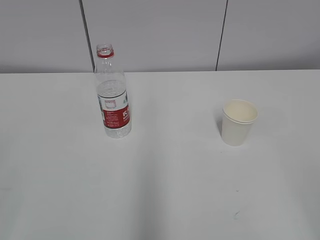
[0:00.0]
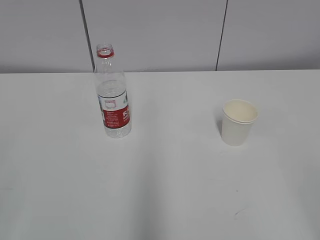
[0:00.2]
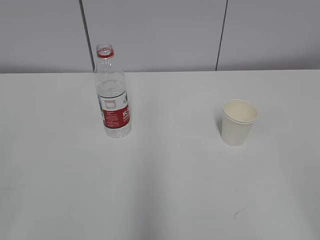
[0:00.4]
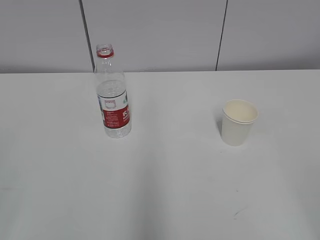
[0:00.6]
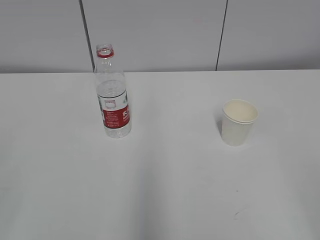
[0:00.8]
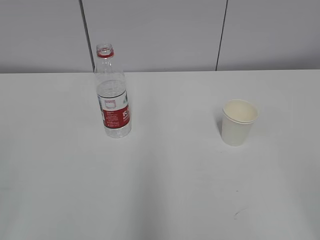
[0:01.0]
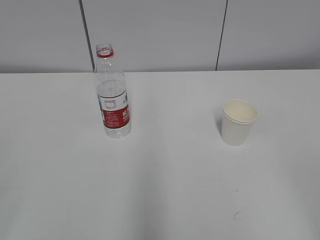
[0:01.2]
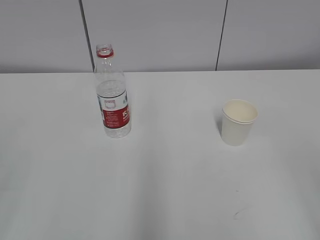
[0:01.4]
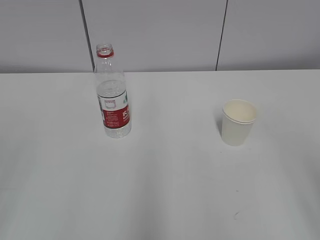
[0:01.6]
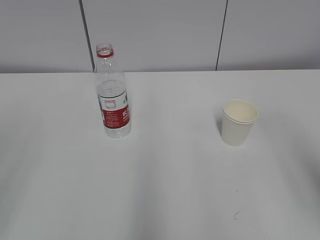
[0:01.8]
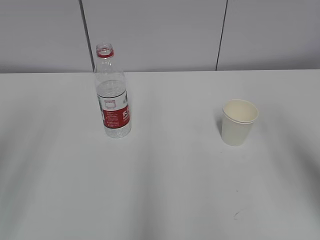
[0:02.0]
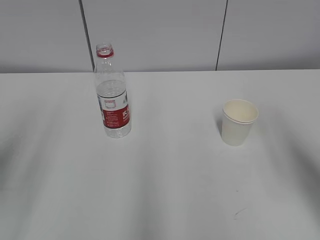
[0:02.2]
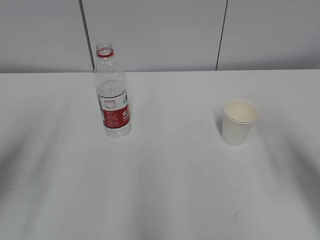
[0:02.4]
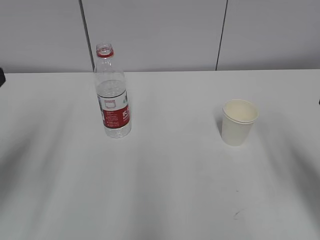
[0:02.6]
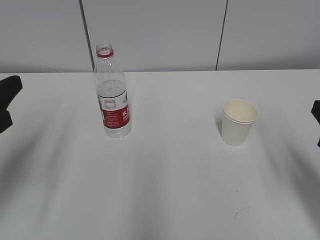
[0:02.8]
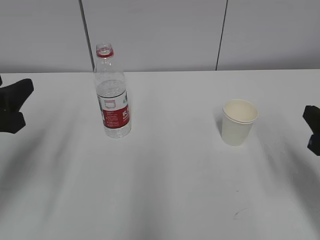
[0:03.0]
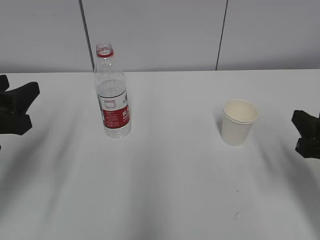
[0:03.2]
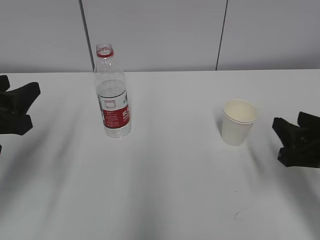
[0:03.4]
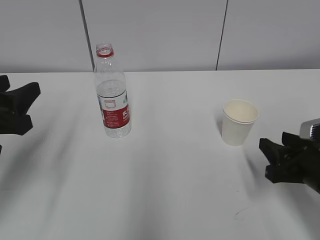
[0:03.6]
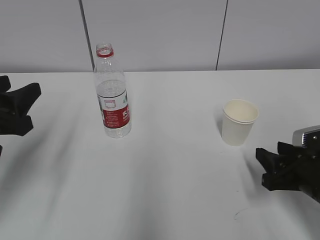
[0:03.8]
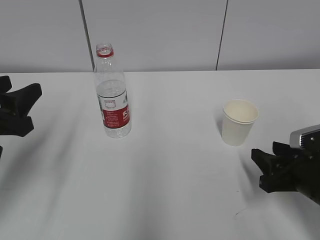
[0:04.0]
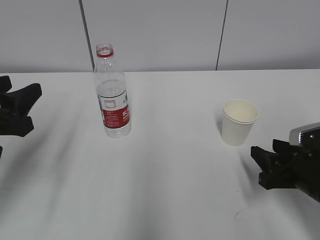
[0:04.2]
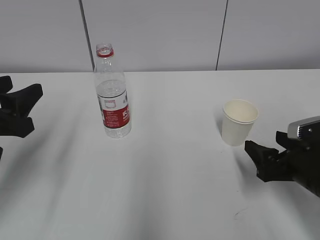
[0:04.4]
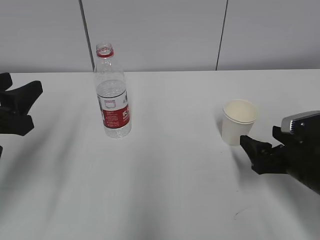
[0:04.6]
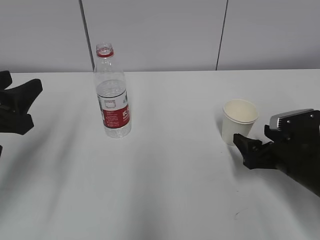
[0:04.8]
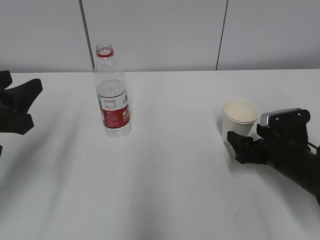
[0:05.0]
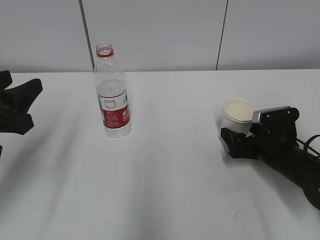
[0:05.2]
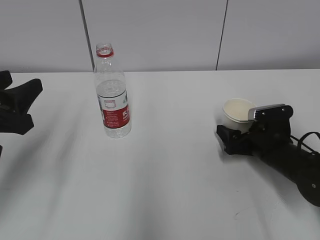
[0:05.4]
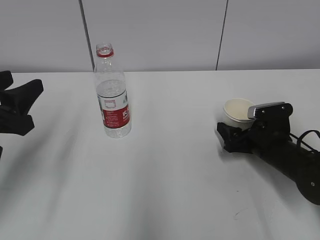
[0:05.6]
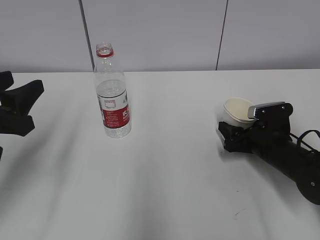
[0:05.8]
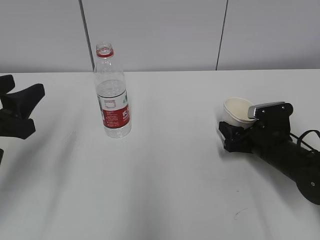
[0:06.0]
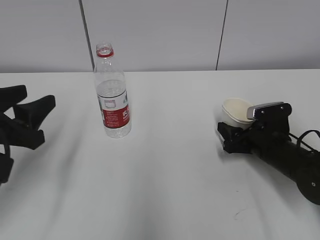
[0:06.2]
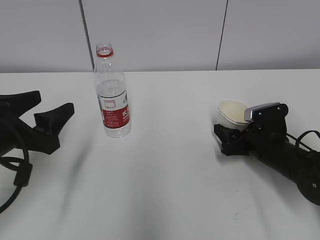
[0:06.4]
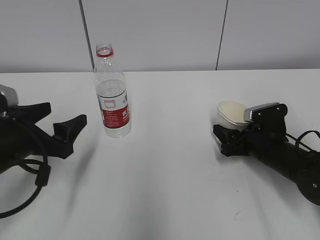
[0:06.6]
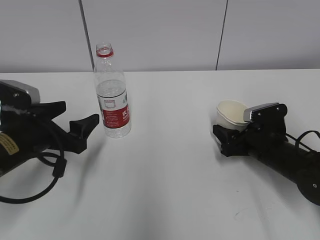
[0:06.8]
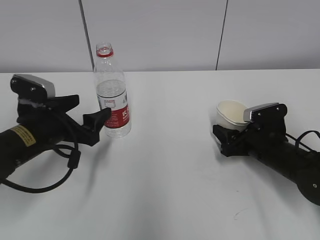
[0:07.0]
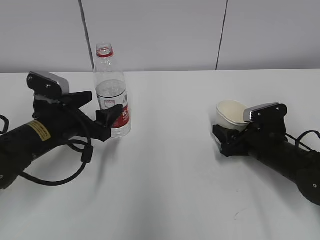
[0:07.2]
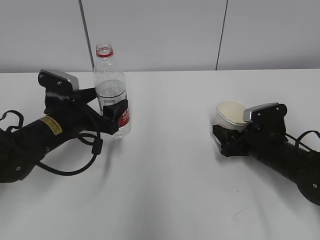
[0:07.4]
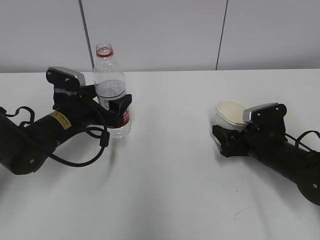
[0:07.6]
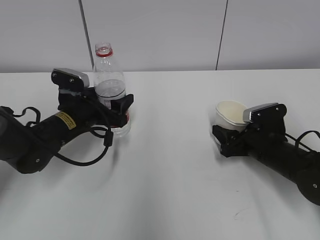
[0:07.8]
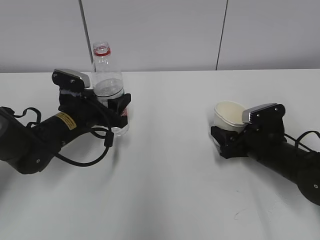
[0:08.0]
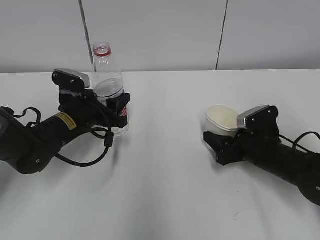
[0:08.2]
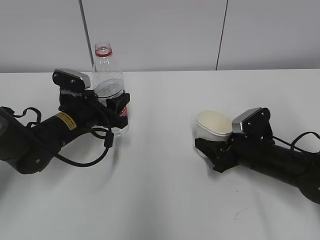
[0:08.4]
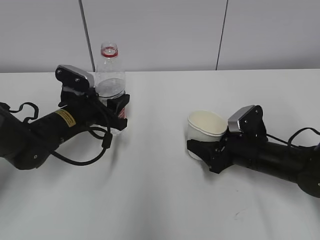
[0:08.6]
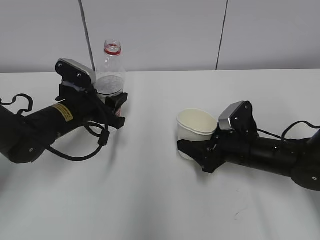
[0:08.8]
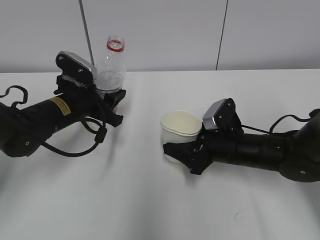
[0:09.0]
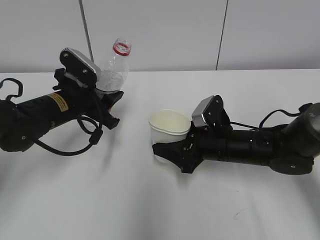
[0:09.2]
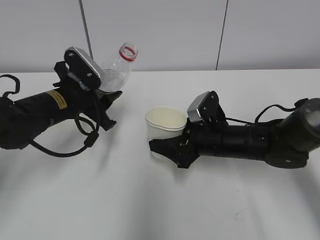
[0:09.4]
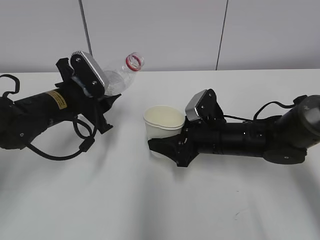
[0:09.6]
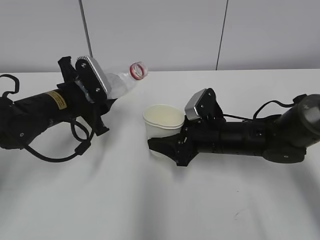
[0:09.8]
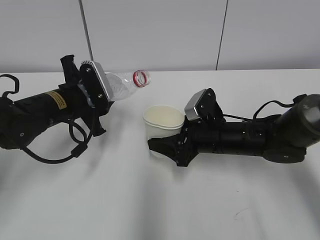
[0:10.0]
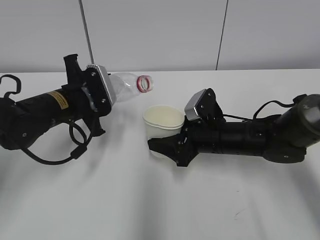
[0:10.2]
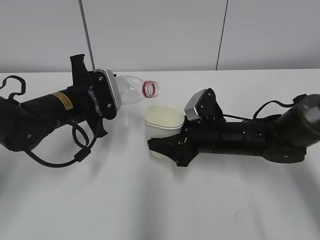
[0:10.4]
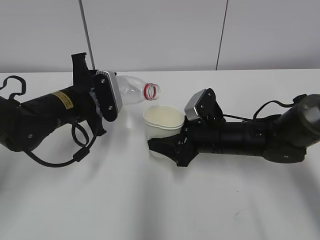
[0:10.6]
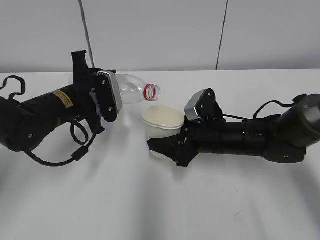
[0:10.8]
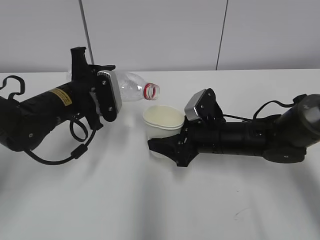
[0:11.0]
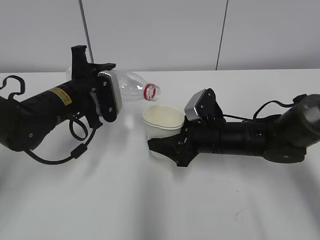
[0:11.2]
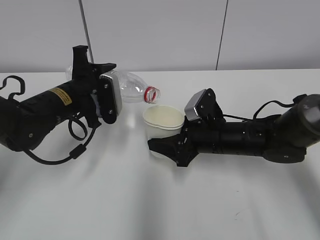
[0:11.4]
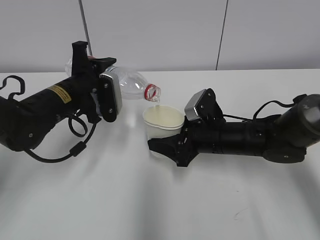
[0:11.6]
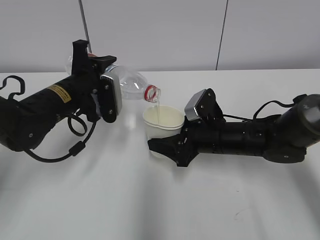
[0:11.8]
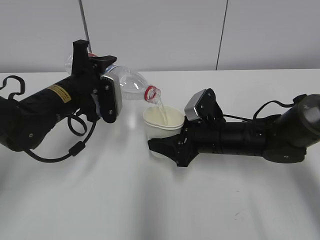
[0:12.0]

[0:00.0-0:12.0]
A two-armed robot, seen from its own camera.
Step, 0:00.0 to 0:05.0: Grab the paper cup with the right hand.
Step, 0:05.2 to 0:07.0: Grab the water bottle with the left hand.
Step, 0:07.2 to 0:09.6: Lift the paper cup with the right hand.
0:01.6 to 0:03.0: Both grippers move forward and downward, roughly 20 cm.
0:03.0 to 0:04.4: The right gripper shifts about 10 cm downward, and opens its fingers.
0:04.4 to 0:06.0: The right gripper is displaced forward and downward by some 10 cm, and closes up.
0:06.0 to 0:07.6: The left gripper moves forward, downward and to the right, approximately 20 cm, and opens its fingers.
0:07.6 to 0:09.0: The right gripper moves to the left, approximately 5 cm. Meanwhile the left gripper closes its fingers.

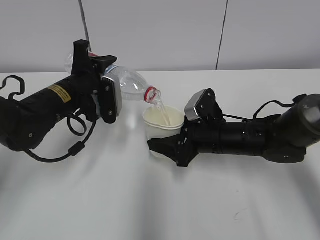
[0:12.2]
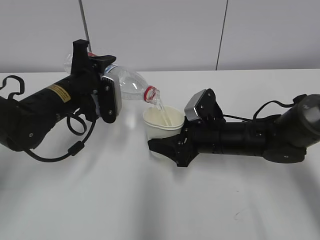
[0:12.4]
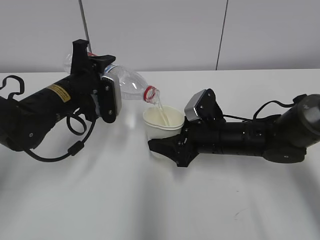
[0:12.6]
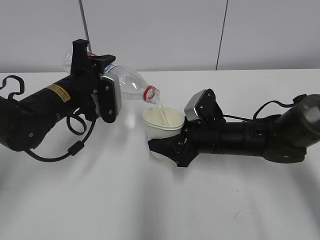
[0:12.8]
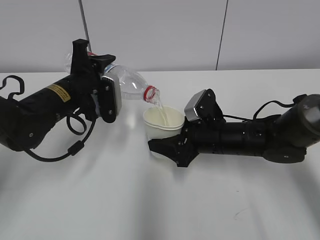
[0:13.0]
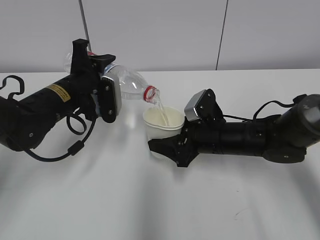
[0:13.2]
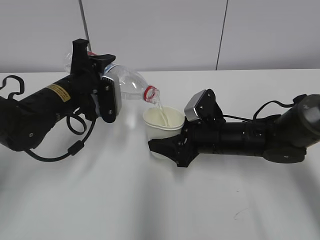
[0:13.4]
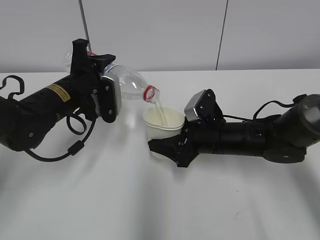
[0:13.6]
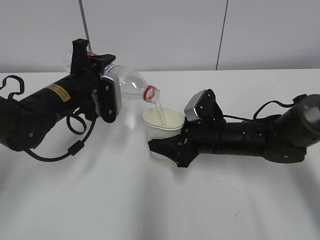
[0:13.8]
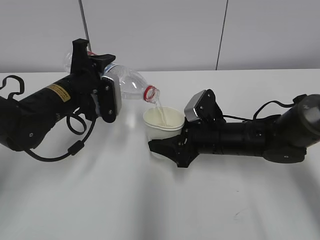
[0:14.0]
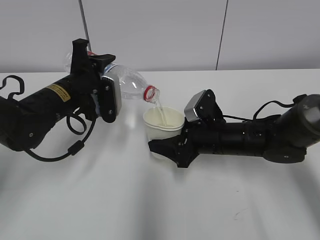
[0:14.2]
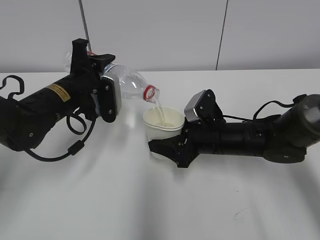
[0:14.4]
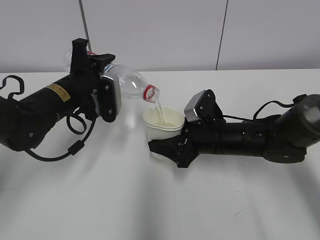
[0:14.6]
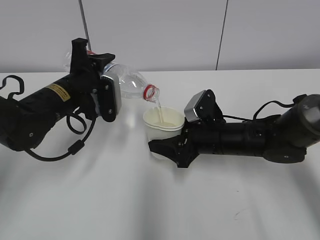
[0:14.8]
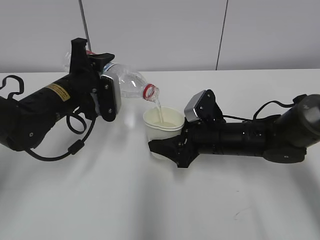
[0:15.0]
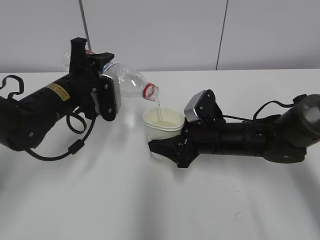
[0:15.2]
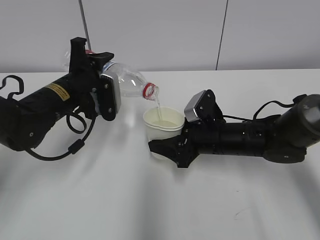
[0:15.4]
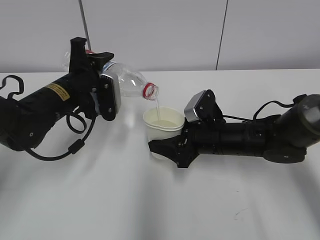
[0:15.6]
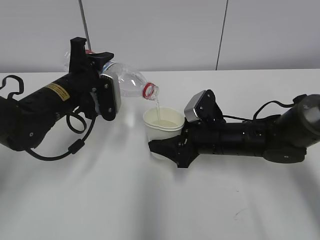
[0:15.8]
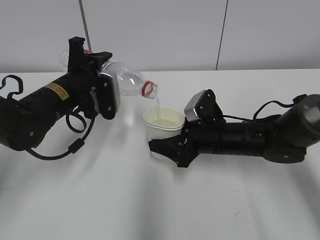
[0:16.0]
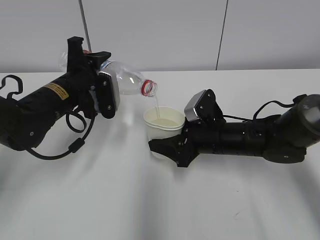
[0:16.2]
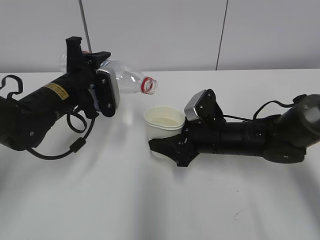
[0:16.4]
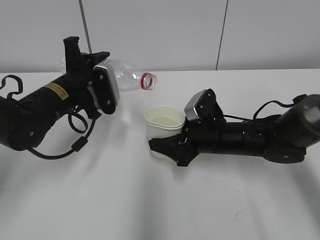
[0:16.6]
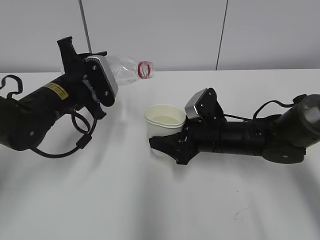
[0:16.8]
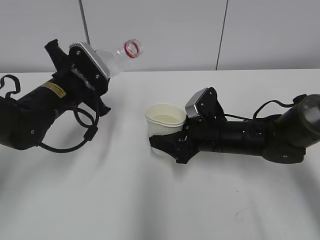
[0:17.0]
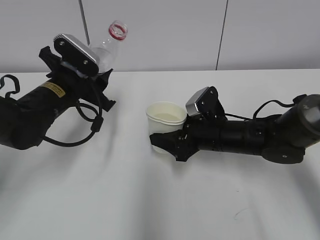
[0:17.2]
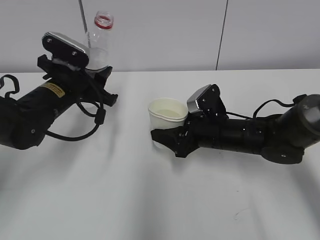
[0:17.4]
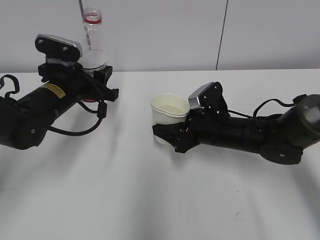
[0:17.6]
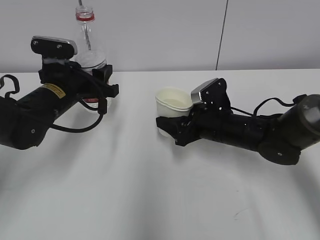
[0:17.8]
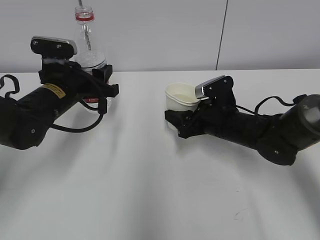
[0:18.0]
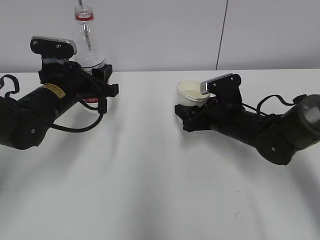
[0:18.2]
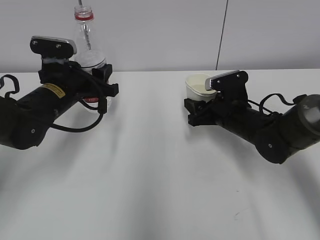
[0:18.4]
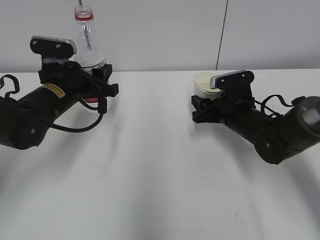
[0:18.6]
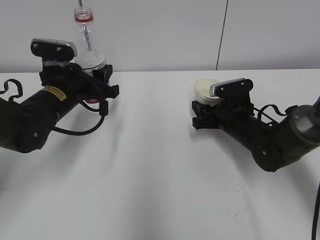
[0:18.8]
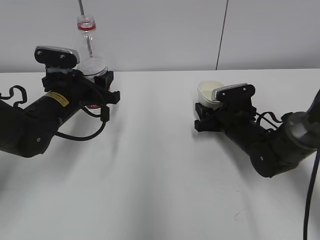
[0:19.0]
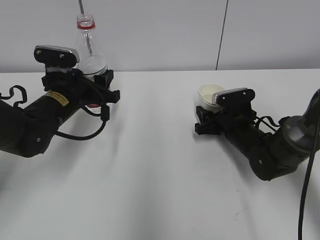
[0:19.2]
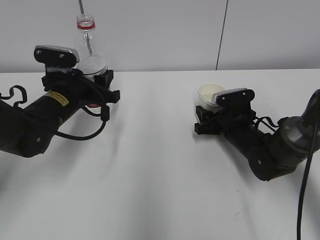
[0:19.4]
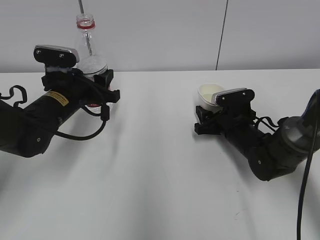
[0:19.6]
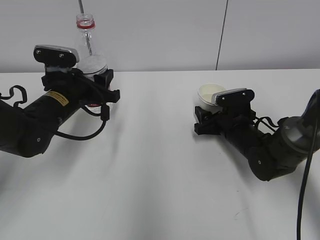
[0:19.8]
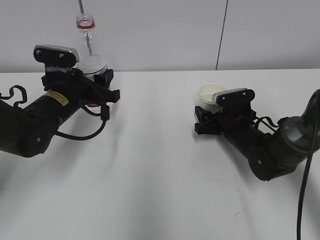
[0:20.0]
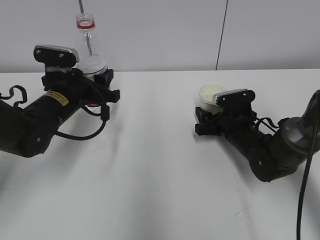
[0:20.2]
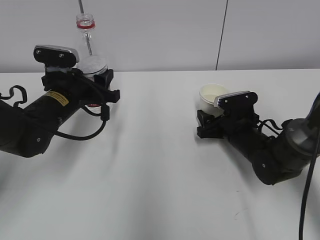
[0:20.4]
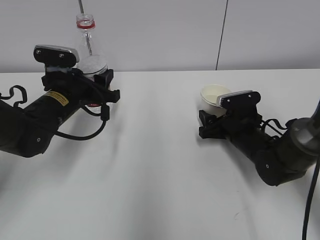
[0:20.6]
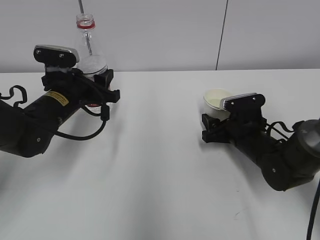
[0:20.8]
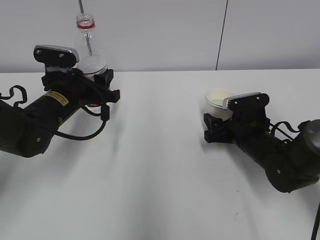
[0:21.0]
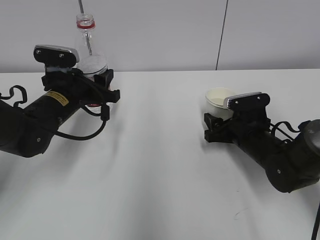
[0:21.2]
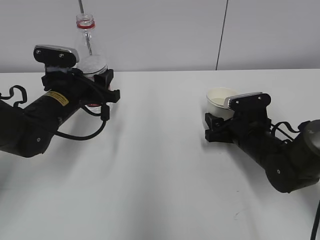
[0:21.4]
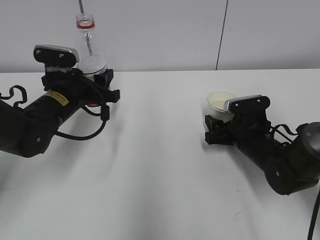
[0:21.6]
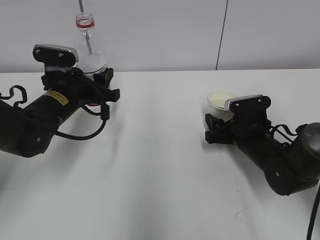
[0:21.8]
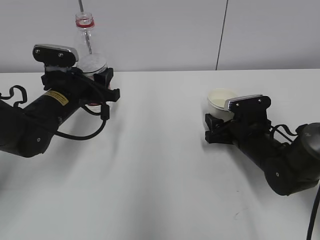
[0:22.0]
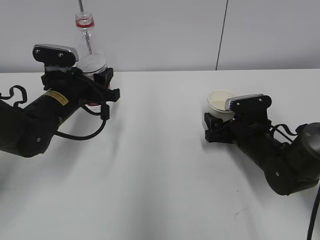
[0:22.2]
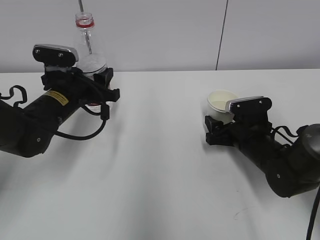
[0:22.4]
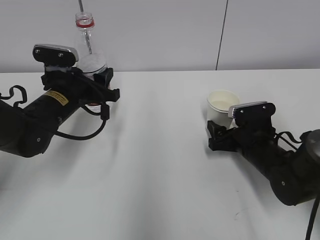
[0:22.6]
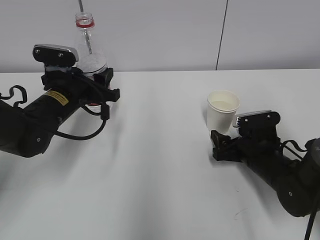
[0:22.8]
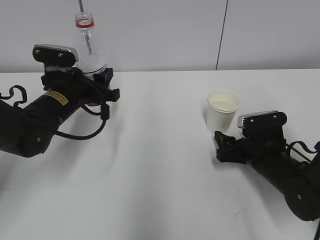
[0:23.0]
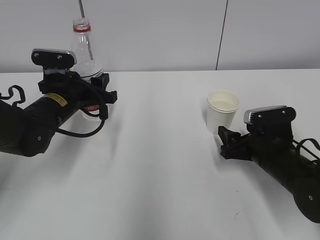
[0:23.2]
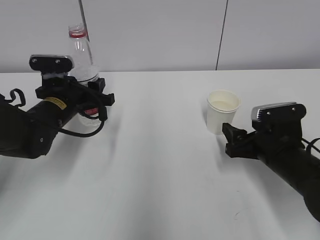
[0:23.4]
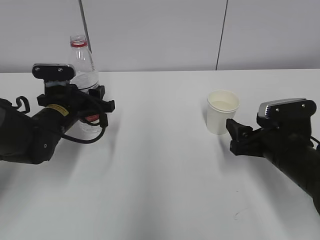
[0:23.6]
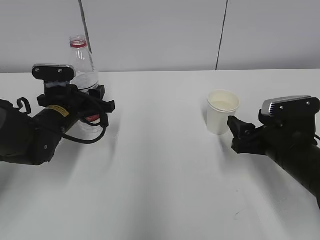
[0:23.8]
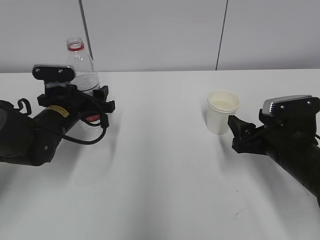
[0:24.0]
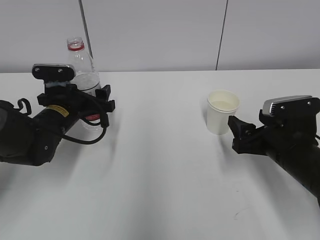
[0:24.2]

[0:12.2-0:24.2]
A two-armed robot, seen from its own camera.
Step, 0:14.8 to 0:16.6: Place the paper cup with the right hand.
Step, 0:16.8 to 0:20.0: Place the water bottle with the left hand.
0:12.2 to 0:15.2: Neither gripper changes place.
0:15.2 to 0:16.6: The grippers make only small movements.
0:18.2 to 0:19.8: The right gripper changes place by approximately 5 cm.
0:19.8 to 0:22.6: The grippers move only a little.
0:22.6 to 0:24.2: The right gripper heads backward and upward, covering approximately 10 cm. The left gripper opens up.
